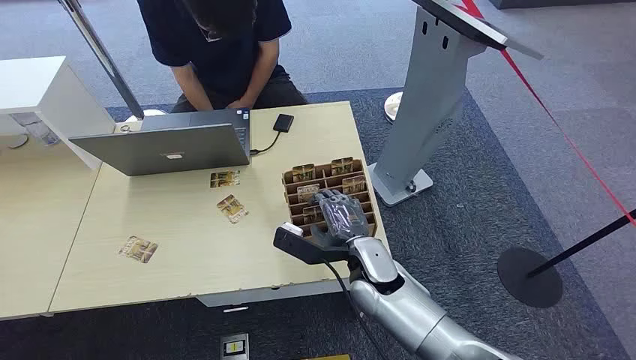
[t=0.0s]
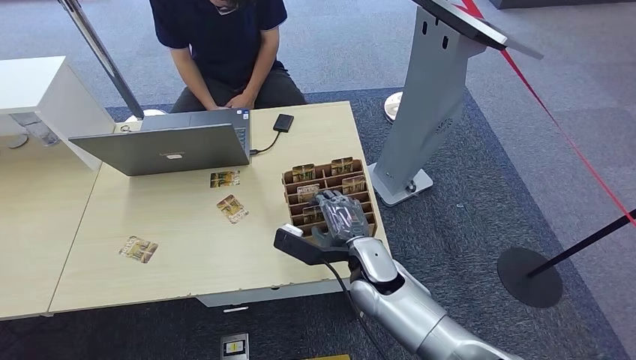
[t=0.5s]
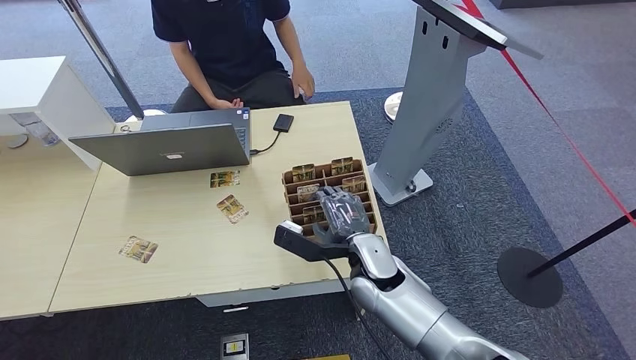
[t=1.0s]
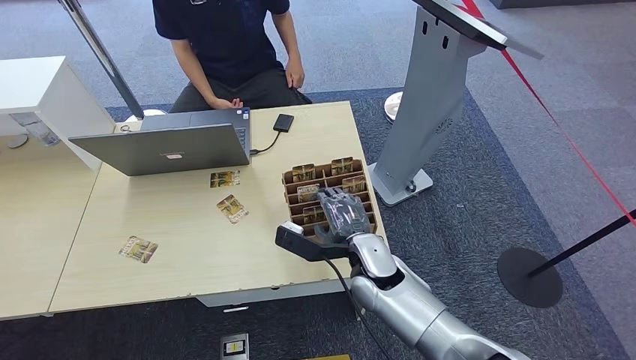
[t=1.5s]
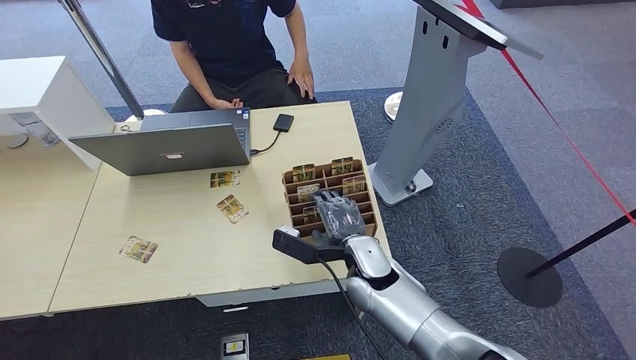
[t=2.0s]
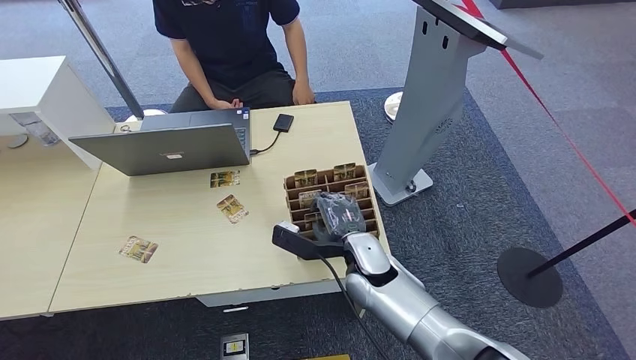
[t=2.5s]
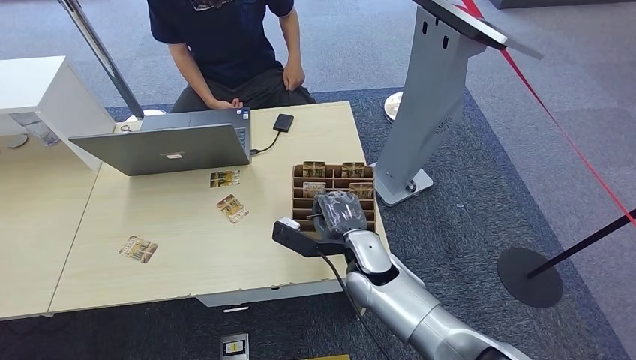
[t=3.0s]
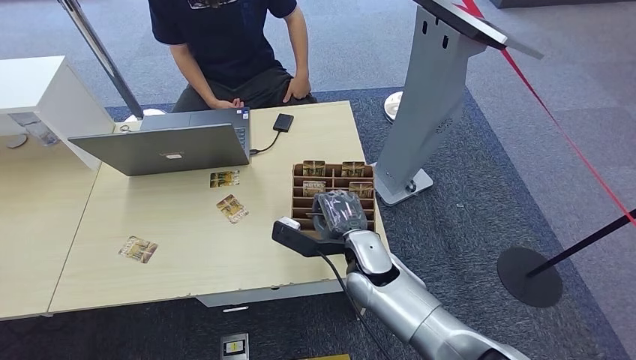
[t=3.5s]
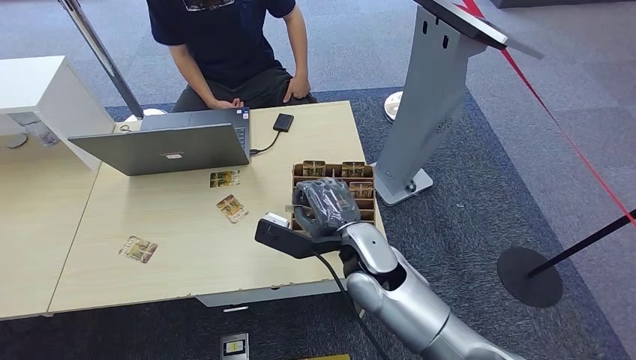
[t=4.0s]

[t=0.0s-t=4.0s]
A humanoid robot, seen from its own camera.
Task of the whole recording: Pick up the card and hand it over to the target person.
Step, t=0.0s to t=4.0s: Pick up the key card from the card box.
t=2.0s to t=4.0s: The right hand goes roughly 15 cm upward.
